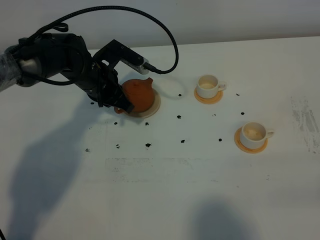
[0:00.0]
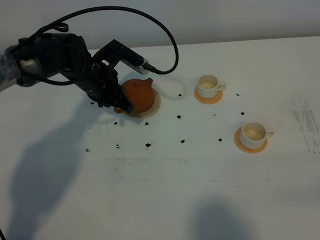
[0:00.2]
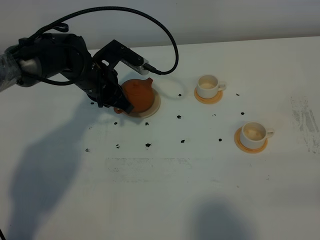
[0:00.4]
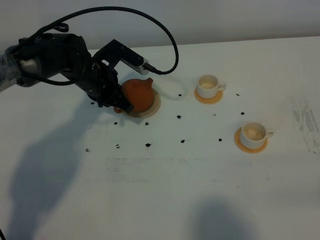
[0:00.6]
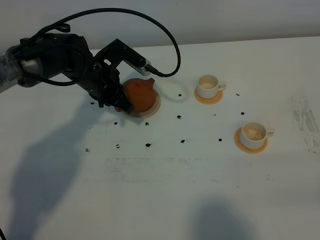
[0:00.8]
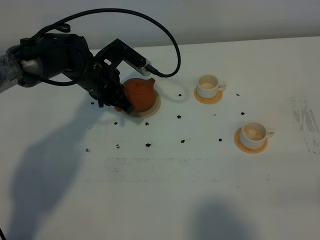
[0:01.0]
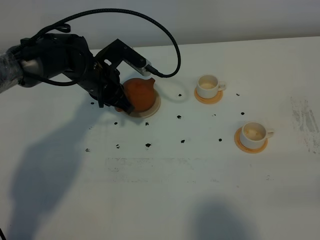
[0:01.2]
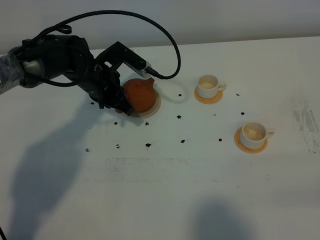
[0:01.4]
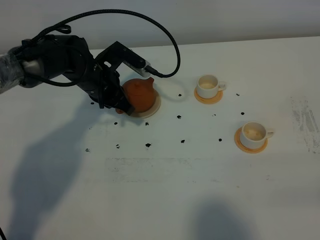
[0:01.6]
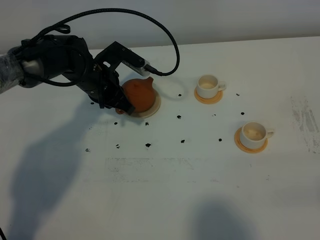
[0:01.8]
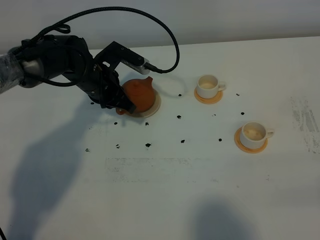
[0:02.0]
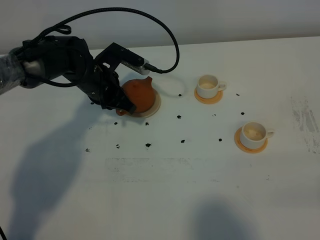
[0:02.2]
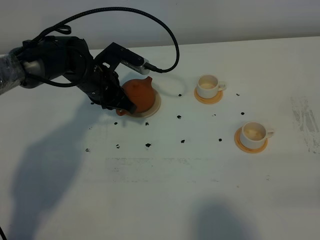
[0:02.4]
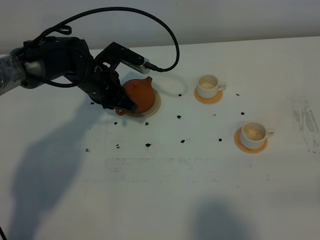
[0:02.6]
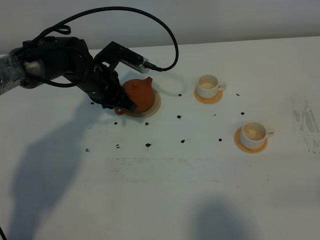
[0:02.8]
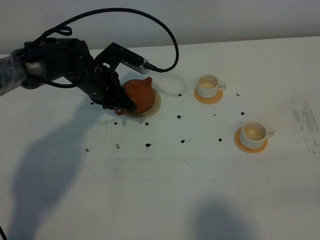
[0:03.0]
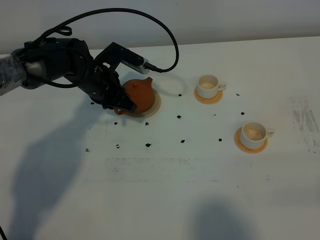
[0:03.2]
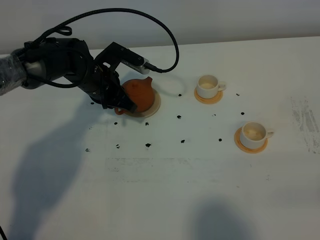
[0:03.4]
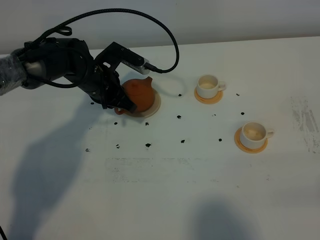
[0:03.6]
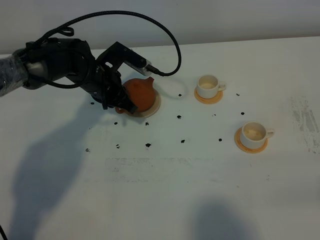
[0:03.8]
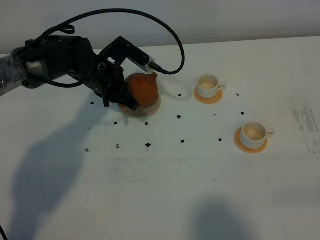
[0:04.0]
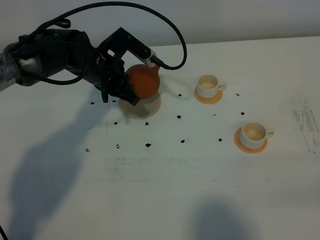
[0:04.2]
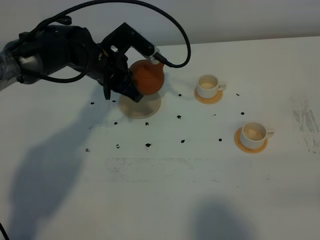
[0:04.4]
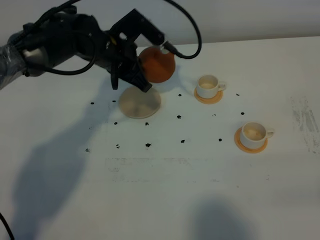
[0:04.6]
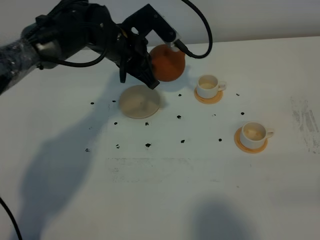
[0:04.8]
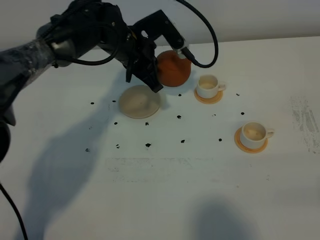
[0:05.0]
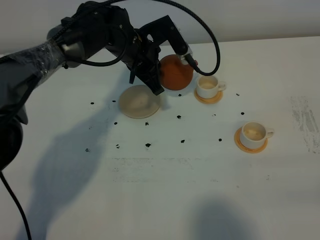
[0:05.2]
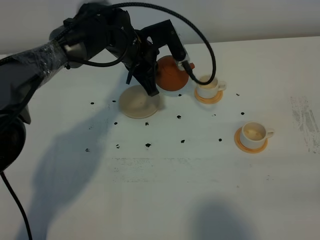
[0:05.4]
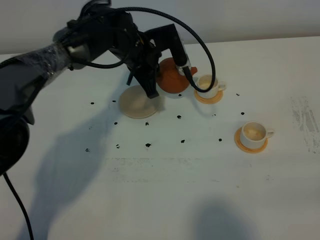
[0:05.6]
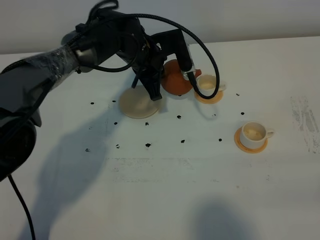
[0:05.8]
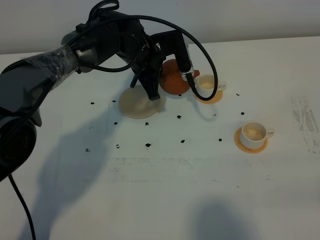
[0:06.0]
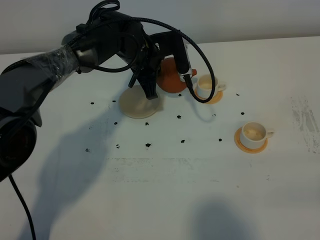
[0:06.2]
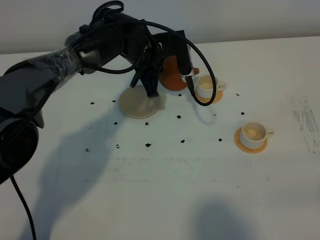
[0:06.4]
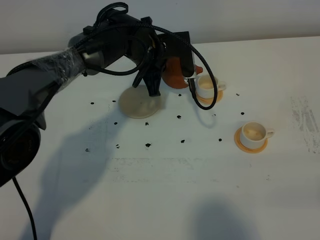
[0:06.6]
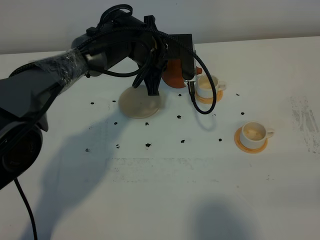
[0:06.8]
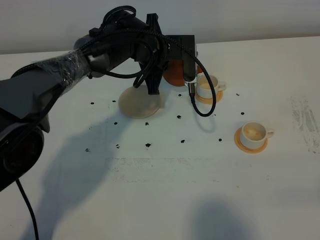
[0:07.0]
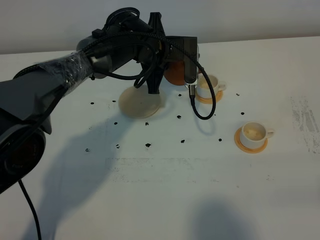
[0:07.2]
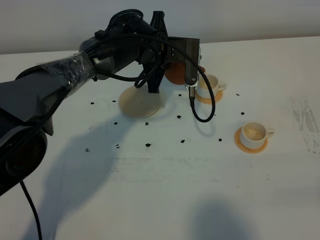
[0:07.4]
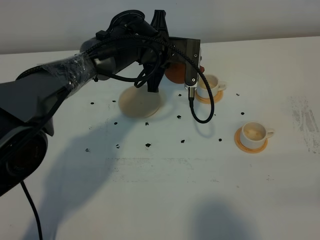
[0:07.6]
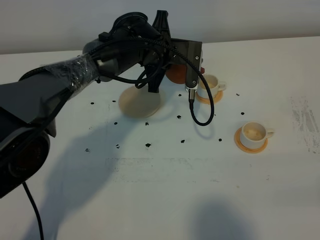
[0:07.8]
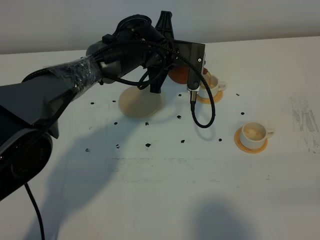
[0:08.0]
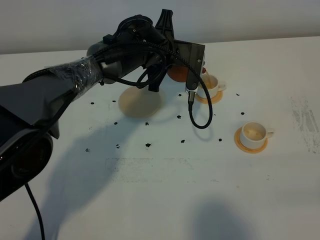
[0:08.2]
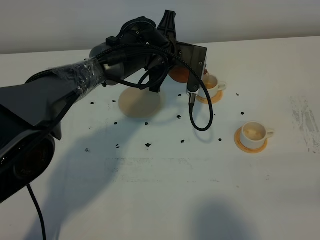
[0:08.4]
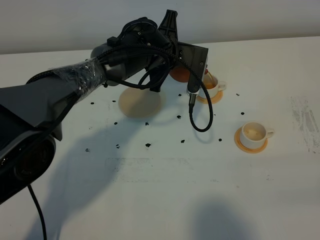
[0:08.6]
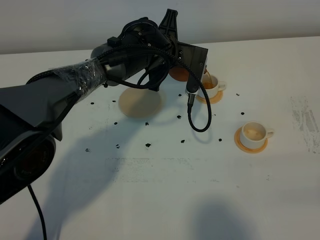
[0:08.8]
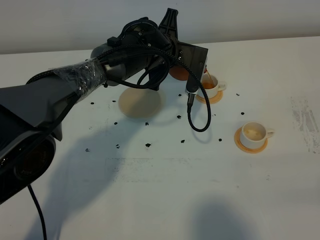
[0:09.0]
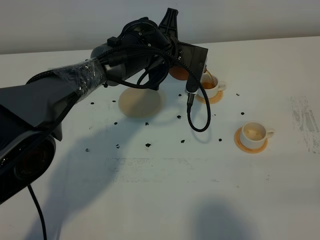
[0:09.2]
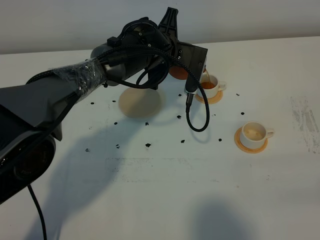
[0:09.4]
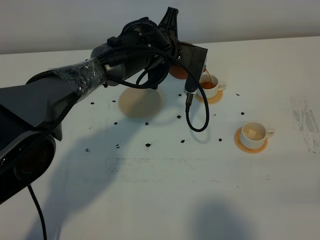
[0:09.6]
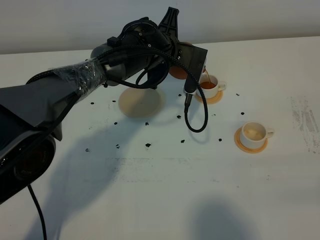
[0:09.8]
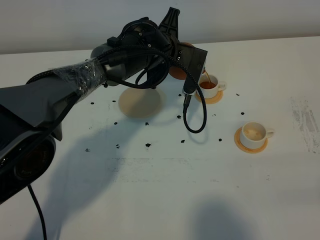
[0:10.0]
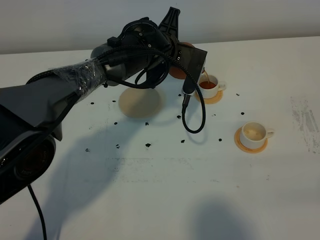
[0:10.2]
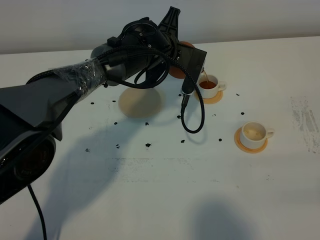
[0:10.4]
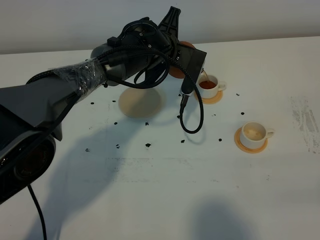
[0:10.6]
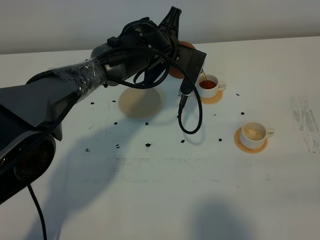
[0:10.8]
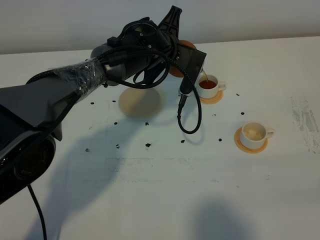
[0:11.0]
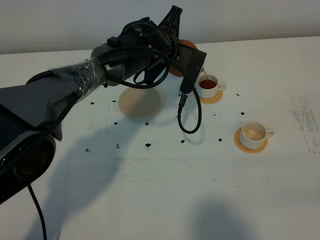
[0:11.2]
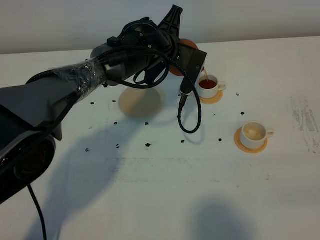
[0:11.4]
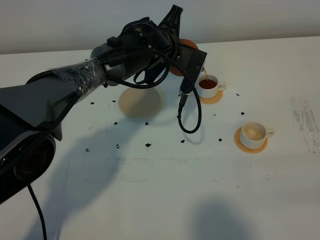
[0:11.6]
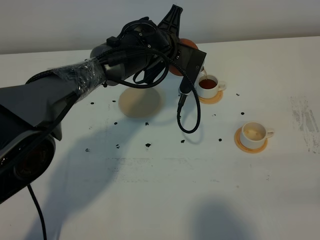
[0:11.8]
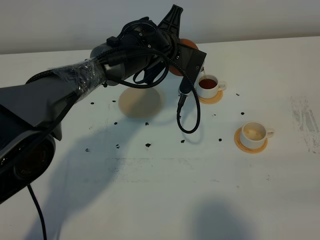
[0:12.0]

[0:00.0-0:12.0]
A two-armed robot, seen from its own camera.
Task of the whole recording: grasp the brown teapot and pour the tea into the two white teacups one by one, put the brown teapot back in its original place.
Step, 0:00.0 to 0:04.4: Pick up the teapot with the left gripper.
0:00.0 to 0:01.6: The two grippers keep their place.
0:01.6 to 0:03.0: There are only small adjustments of the grippers.
0:03.0 to 0:04.4: The left gripper ends up roughly 5 cm from where it was.
0:04.4 to 0:06.0: The left gripper heads to the right, covering about 5 cm.
0:07.6 to 0:10.4: The grippers move only a little.
0:10.4 to 0:12.0: Both grippers stay about where they are.

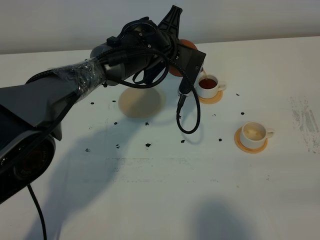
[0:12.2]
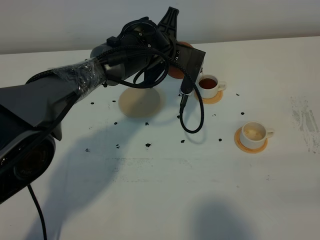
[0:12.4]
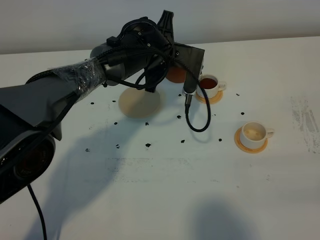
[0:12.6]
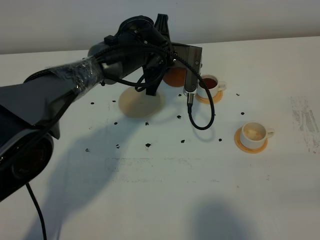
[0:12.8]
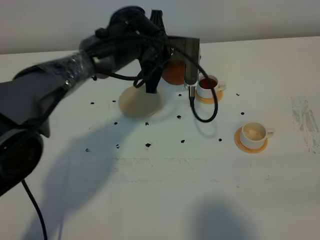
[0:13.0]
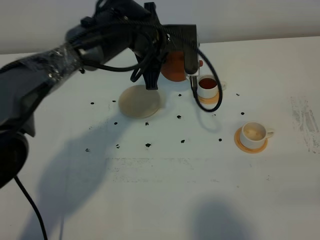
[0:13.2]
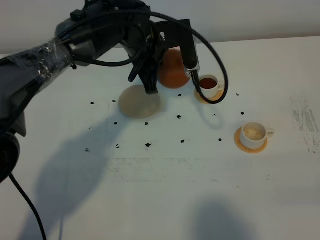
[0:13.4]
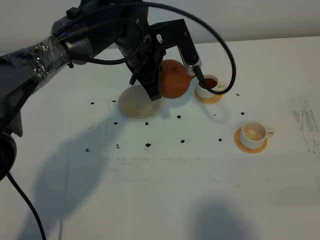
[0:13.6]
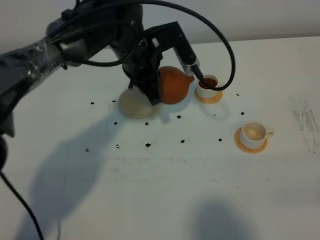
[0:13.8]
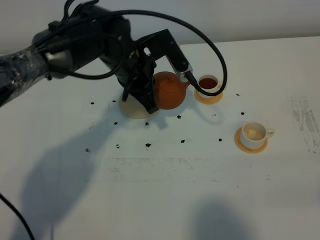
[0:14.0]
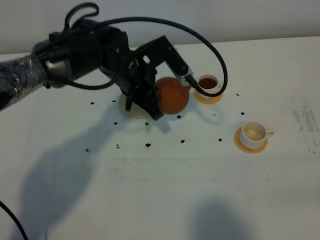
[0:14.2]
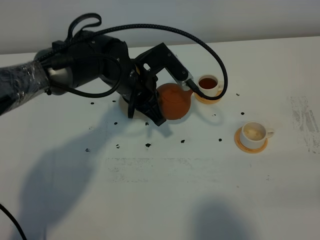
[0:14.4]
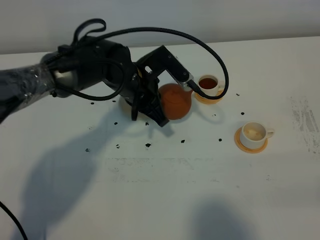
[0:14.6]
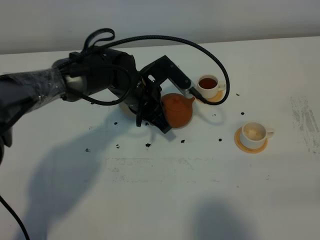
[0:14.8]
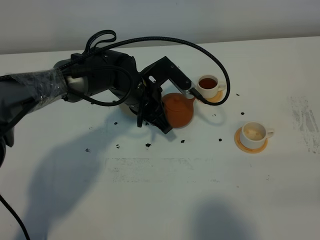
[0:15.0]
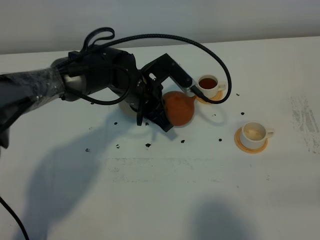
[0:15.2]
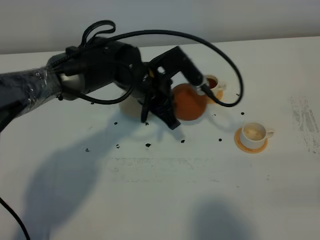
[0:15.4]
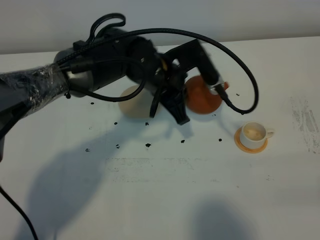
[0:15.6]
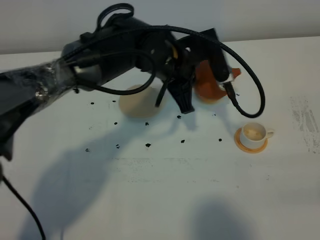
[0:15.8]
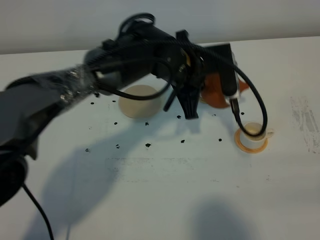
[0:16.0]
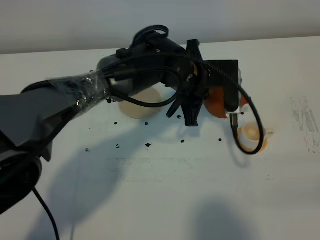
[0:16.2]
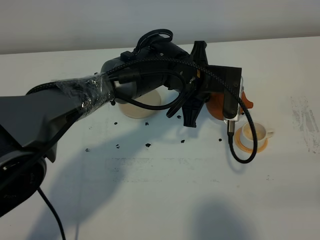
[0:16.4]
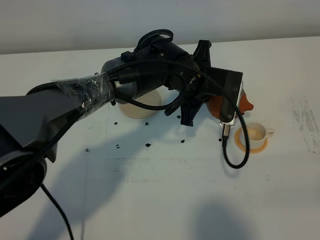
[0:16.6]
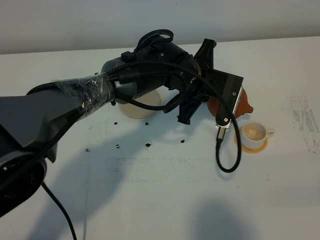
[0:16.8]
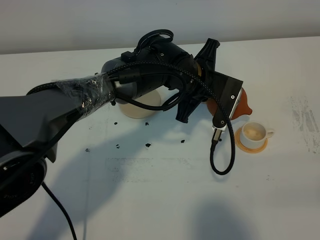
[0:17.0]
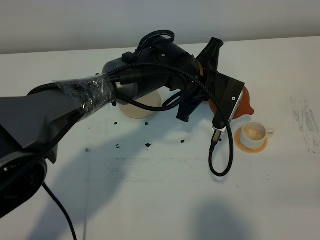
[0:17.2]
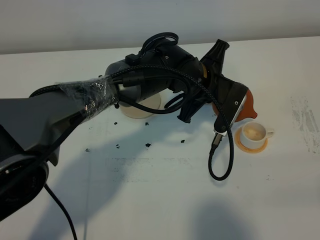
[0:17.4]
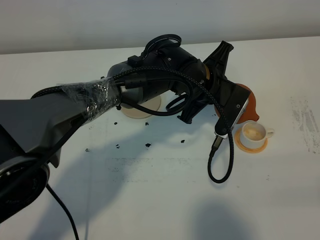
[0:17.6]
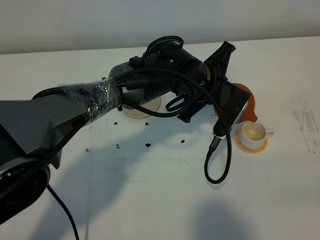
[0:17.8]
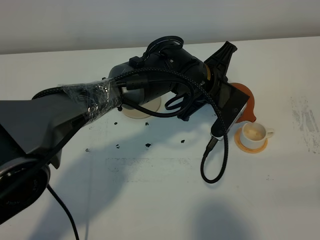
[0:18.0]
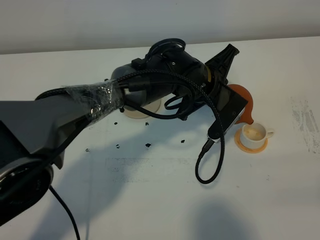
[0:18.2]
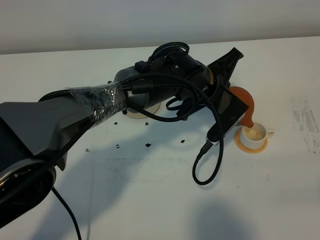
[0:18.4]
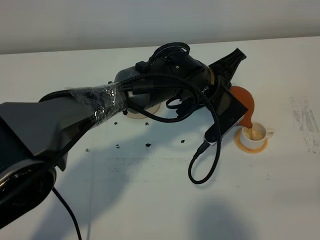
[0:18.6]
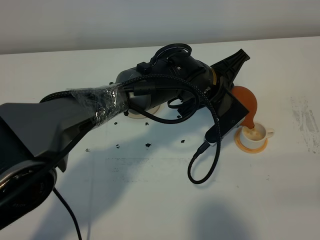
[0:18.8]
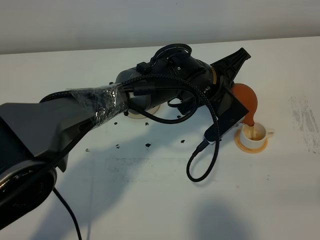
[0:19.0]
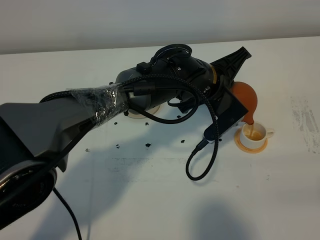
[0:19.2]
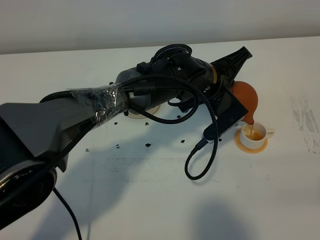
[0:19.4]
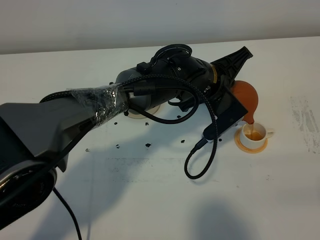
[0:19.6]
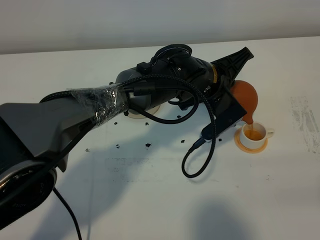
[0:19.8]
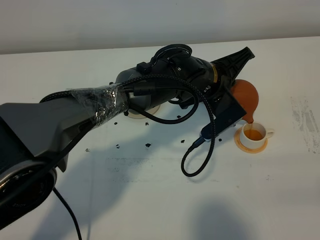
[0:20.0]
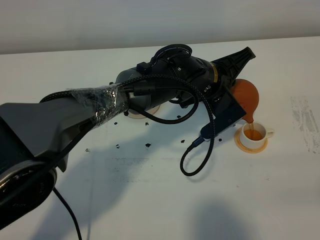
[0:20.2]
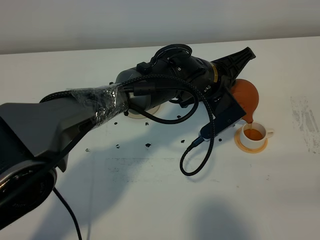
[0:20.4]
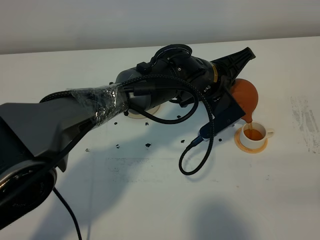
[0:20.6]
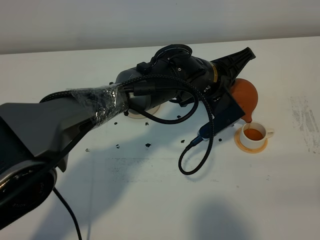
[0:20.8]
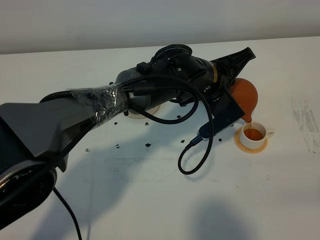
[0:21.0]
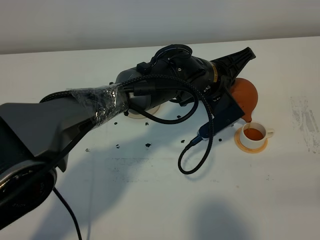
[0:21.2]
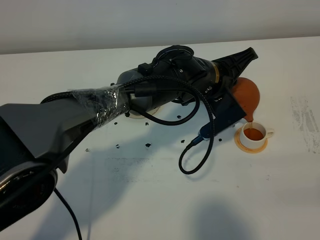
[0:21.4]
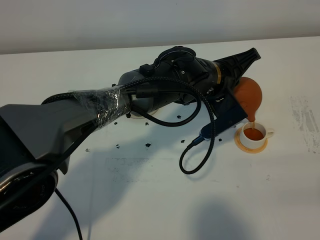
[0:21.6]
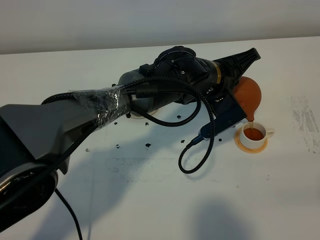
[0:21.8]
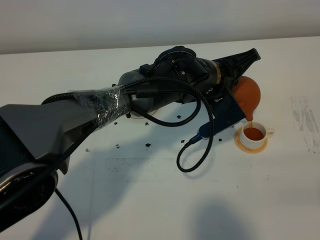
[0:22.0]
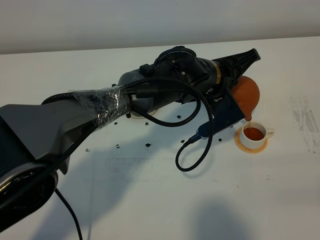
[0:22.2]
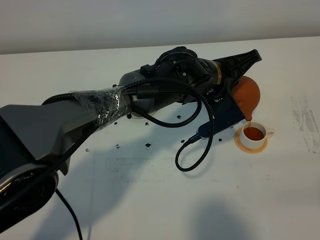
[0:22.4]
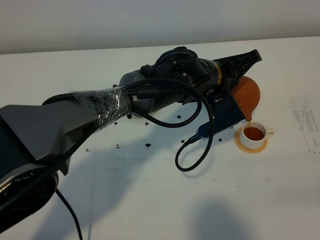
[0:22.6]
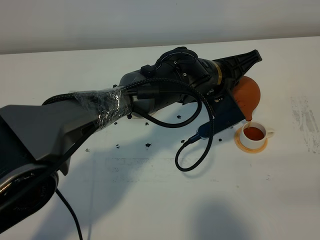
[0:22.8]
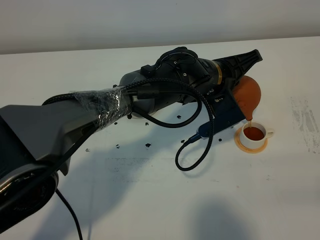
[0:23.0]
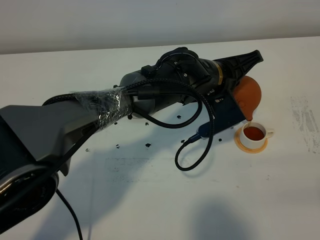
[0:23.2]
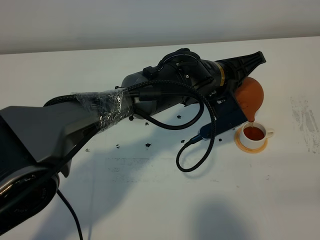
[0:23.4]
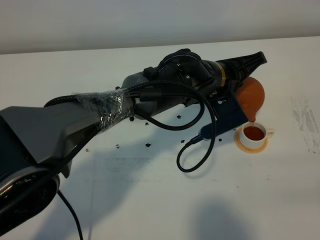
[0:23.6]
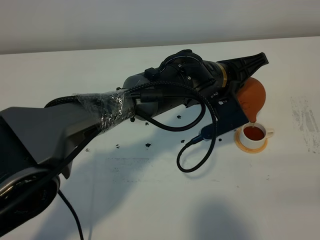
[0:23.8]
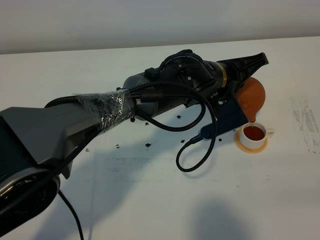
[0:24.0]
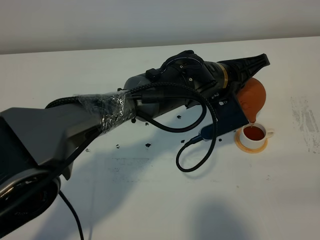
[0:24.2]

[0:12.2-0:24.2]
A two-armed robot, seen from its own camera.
Task of the whole recording: grasp the brown teapot and pour the tea into the two white teacups one by one, put the brown teapot back in its original place.
0:12.2 to 0:13.8: The left gripper ends up some 5 cm from where it was.
0:13.8 to 0:15.2: The left gripper heads downward, covering about 5 cm.
0:15.2 to 0:16.6: The left gripper heads to the right, covering approximately 10 cm.
0:18.2 to 0:19.8: The grippers make only small movements.
0:19.8 to 0:21.2: Both grippers stay about where they are.
0:21.2 to 0:22.6: The grippers make only small movements.
0:22.6 to 0:24.2: Both grippers stay put.
